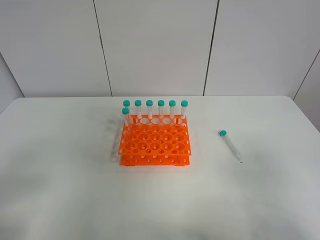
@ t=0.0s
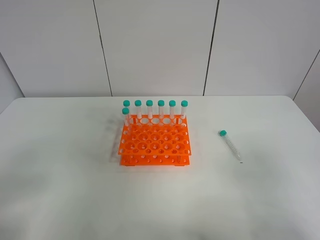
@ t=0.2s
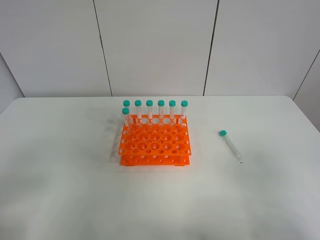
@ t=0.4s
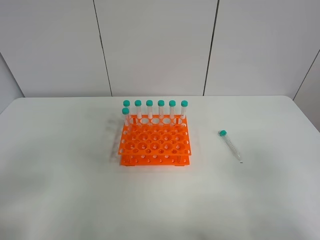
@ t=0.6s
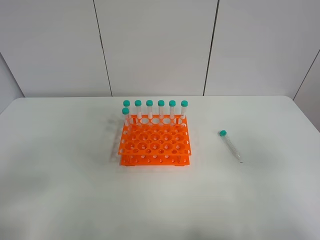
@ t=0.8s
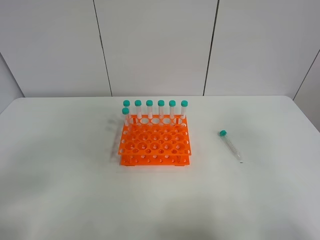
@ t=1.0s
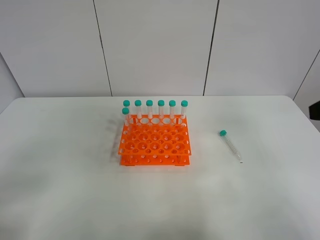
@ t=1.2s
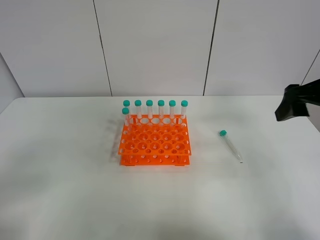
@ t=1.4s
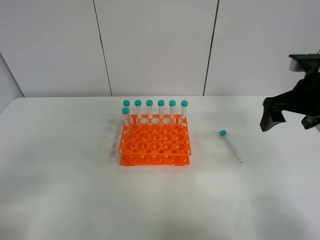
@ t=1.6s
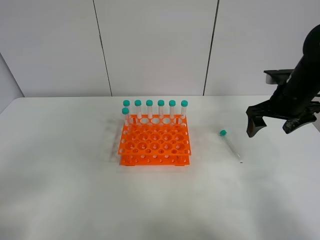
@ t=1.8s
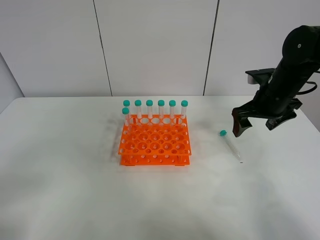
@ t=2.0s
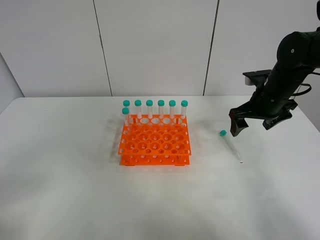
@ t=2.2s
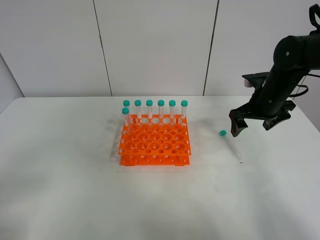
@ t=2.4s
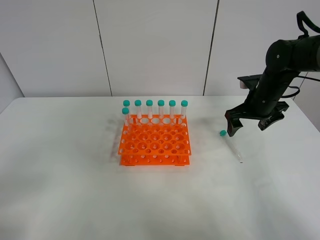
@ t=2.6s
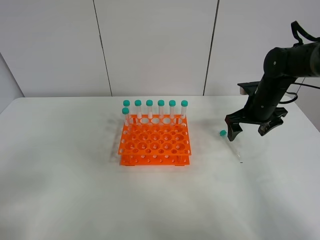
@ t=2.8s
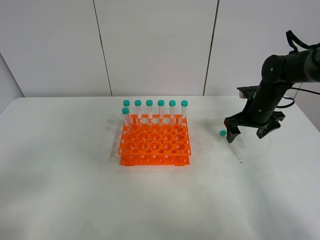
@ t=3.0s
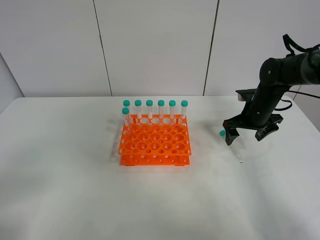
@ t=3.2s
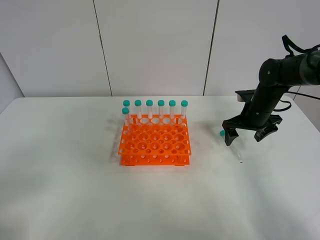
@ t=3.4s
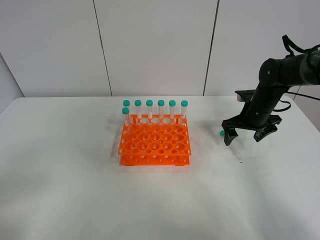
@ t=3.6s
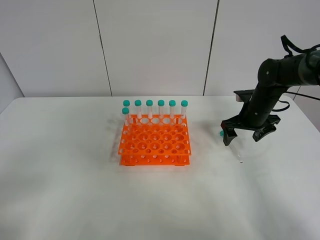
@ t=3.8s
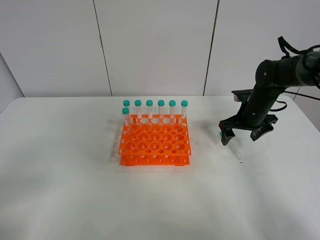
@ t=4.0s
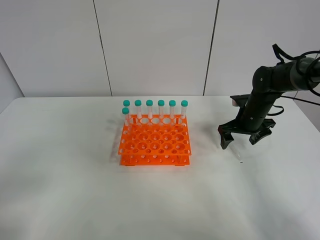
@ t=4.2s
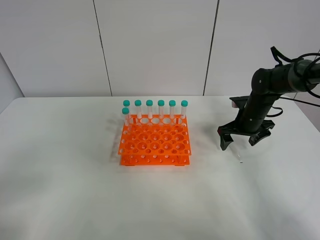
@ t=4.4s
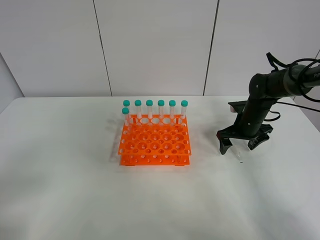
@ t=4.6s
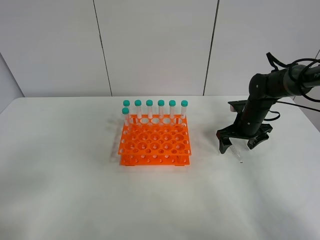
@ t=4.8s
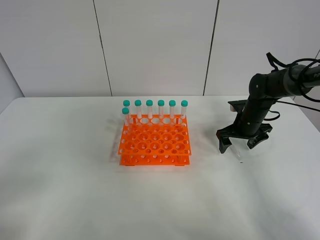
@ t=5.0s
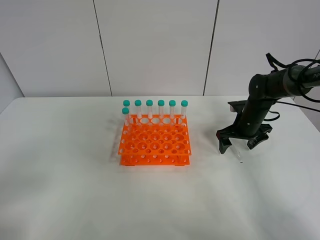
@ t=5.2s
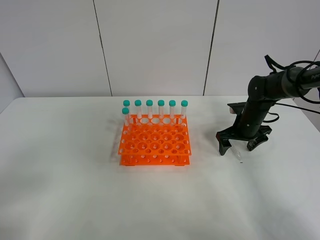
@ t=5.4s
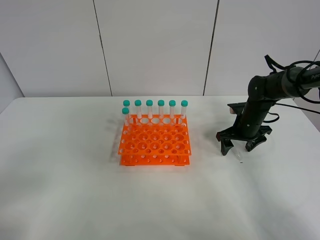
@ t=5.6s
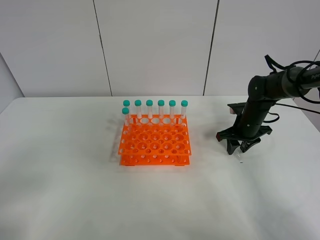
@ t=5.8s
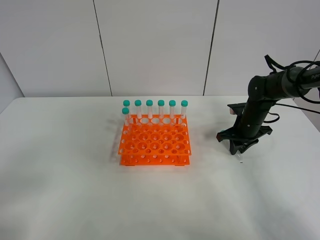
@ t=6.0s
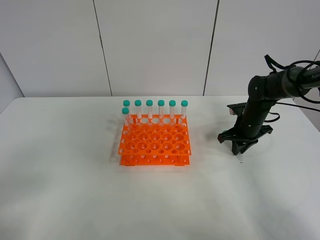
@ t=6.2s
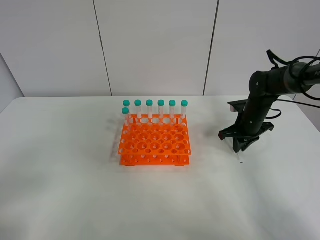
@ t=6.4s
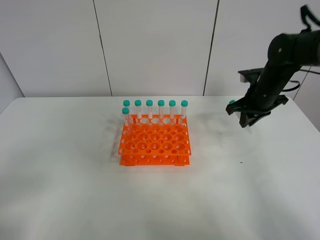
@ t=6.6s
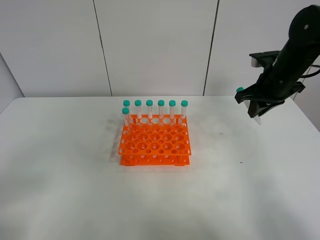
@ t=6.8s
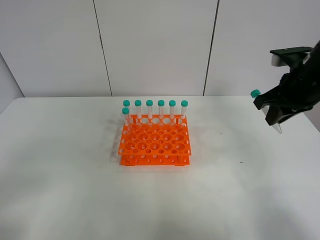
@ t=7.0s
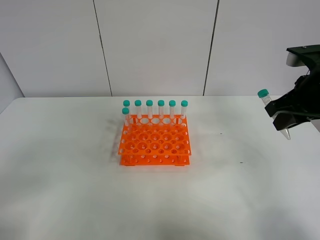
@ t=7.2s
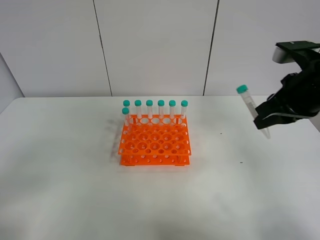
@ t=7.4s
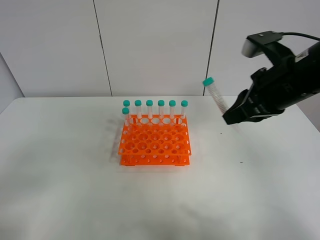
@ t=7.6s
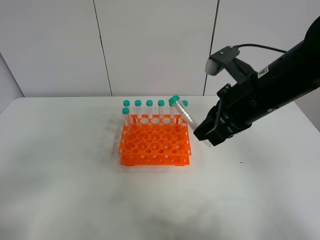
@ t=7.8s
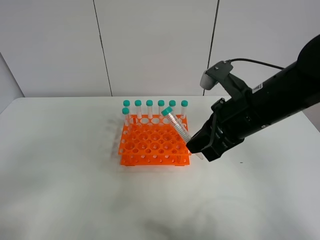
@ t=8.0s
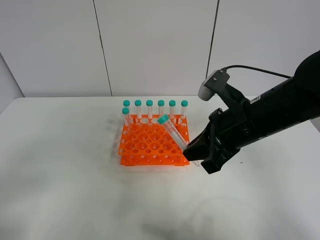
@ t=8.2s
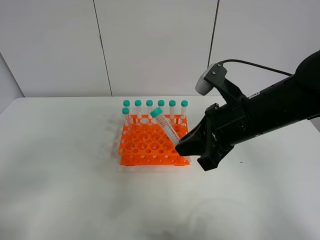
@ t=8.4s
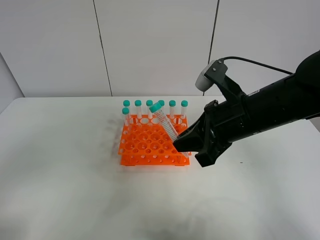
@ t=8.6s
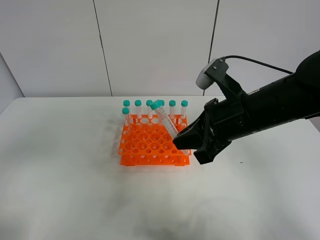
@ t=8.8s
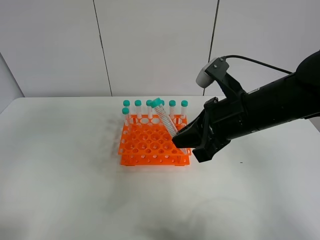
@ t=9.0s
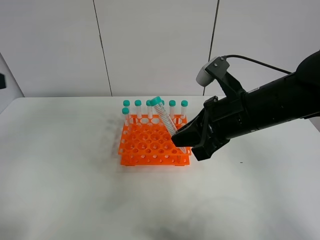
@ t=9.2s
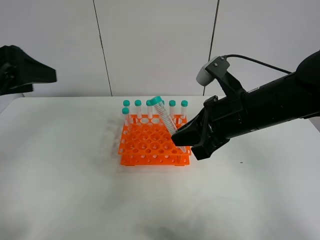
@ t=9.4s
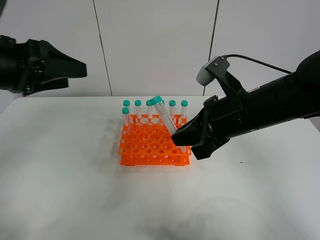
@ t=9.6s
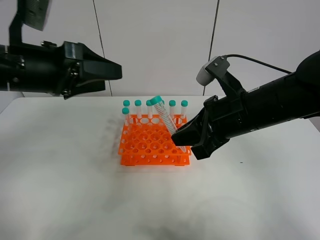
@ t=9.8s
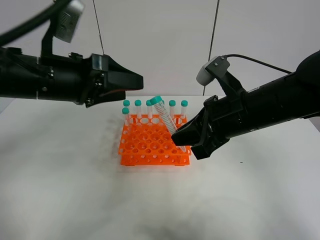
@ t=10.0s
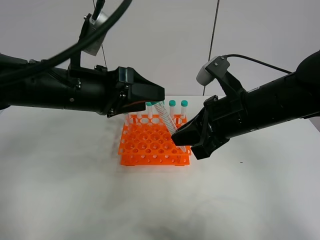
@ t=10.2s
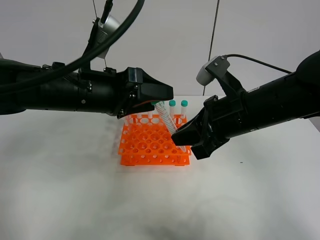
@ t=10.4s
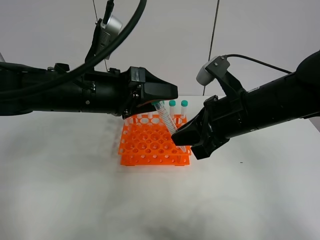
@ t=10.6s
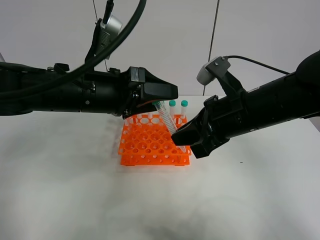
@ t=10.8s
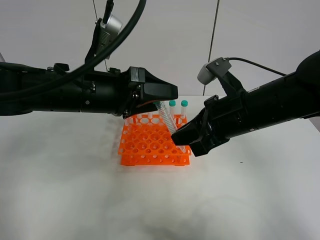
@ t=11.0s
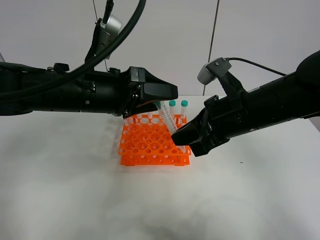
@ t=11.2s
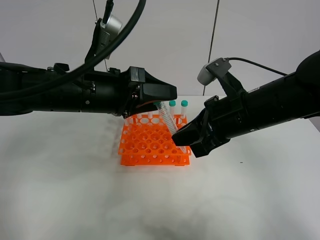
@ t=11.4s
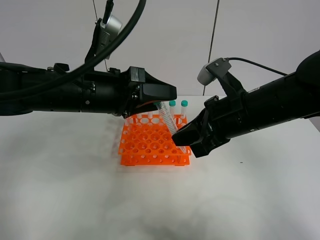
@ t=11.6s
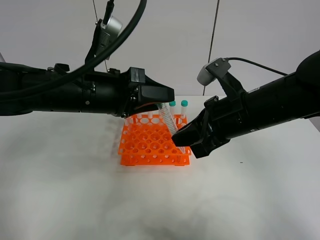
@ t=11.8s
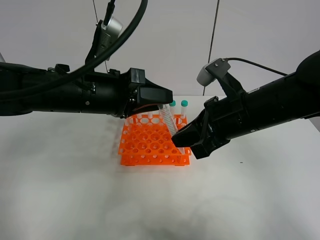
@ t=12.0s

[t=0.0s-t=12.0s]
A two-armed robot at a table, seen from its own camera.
Task of the whole recording: Put the test tube on the table back onto the test tube rack.
Step, t=0.0s to t=6.0s: Pick up the test tube with the right gripper.
t=0.0s to t=1.6s: The right gripper shifts roughly 30 cm forward.
t=1.6s to t=3.0s: The right gripper heads downward and forward, covering approximately 15 cm.
t=3.0s to t=4.4s: The grippers make only small movements.
t=4.4s to t=6.0s: The right gripper closes its fingers.
t=6.0s to t=7.6s: The right gripper heads upward and backward, covering about 25 cm.
t=7.6s to t=9.0s: The left gripper heads forward and upward, covering some 15 cm. Meanwhile the right gripper moves some 5 cm.
t=9.0s to t=10.4s: The left gripper heads to the right, forward and downward, covering about 25 cm.
t=10.4s to t=12.0s: The left gripper closes up.

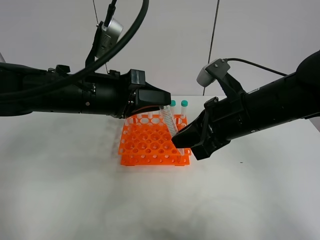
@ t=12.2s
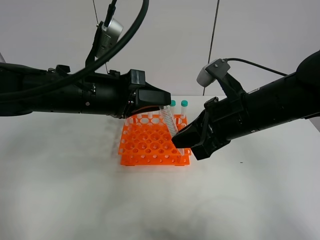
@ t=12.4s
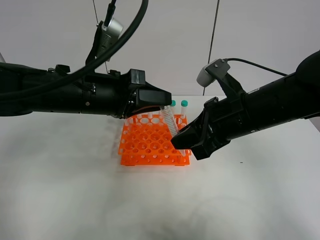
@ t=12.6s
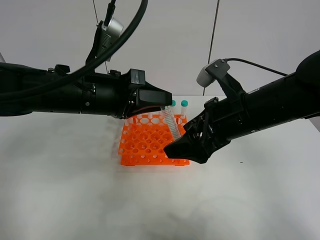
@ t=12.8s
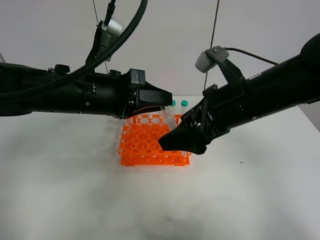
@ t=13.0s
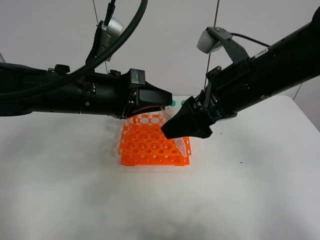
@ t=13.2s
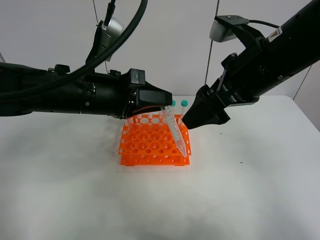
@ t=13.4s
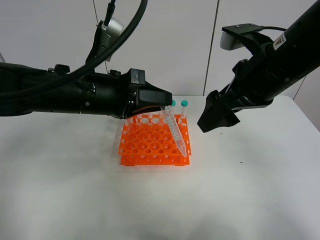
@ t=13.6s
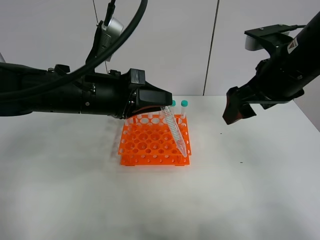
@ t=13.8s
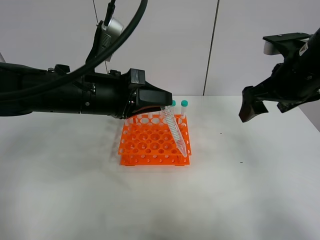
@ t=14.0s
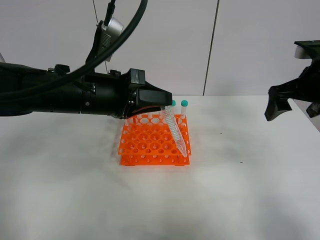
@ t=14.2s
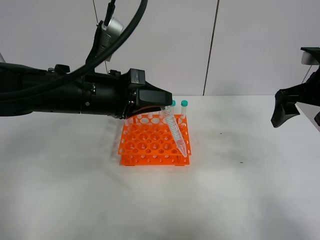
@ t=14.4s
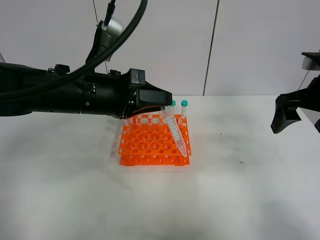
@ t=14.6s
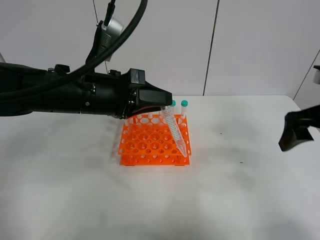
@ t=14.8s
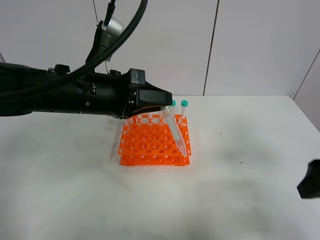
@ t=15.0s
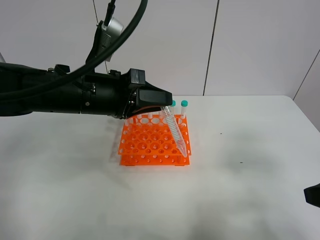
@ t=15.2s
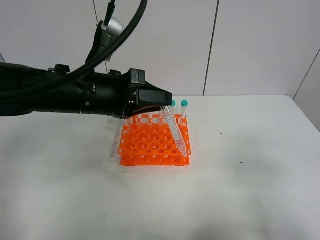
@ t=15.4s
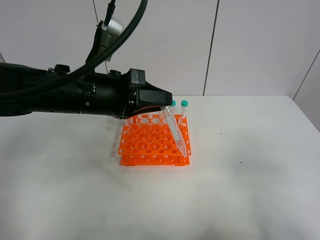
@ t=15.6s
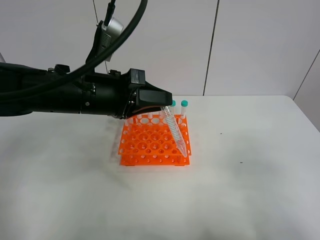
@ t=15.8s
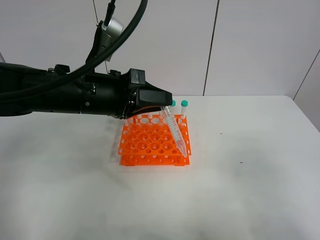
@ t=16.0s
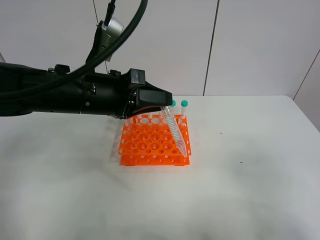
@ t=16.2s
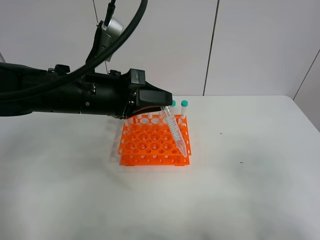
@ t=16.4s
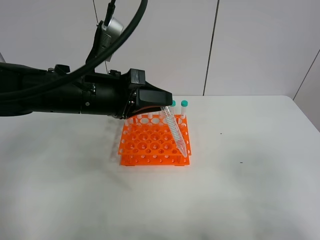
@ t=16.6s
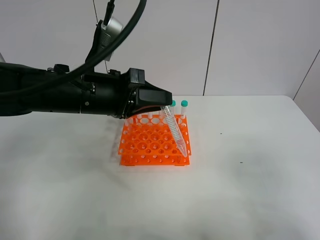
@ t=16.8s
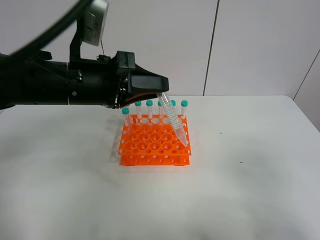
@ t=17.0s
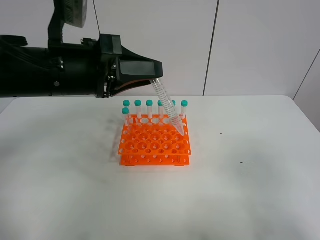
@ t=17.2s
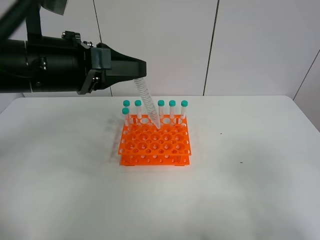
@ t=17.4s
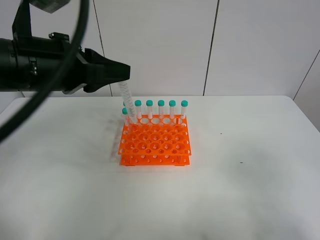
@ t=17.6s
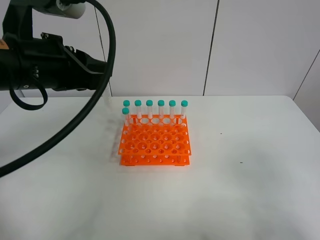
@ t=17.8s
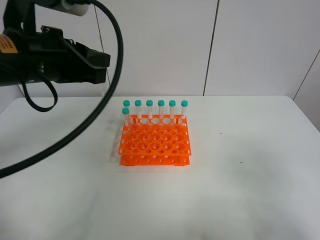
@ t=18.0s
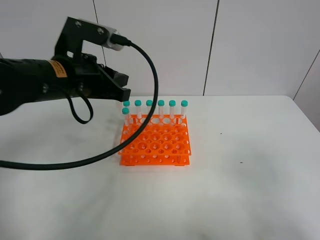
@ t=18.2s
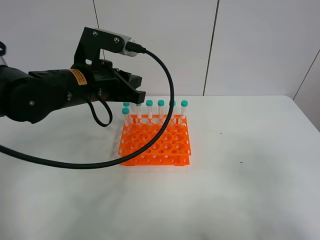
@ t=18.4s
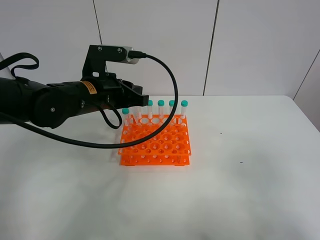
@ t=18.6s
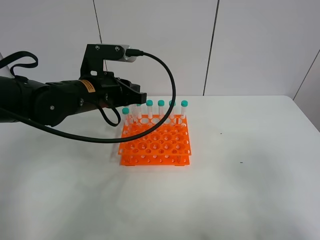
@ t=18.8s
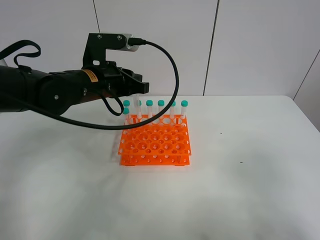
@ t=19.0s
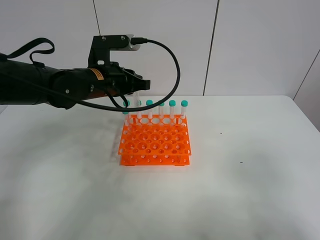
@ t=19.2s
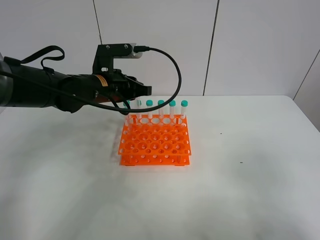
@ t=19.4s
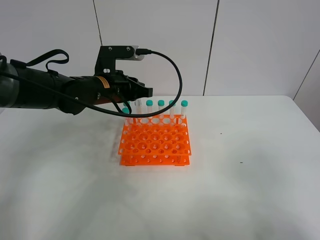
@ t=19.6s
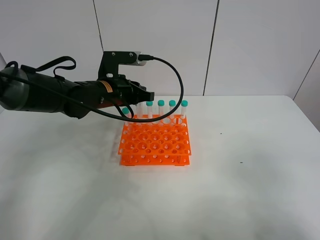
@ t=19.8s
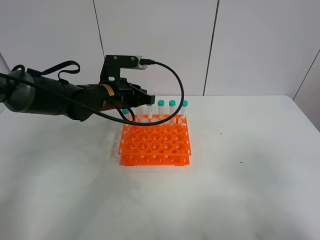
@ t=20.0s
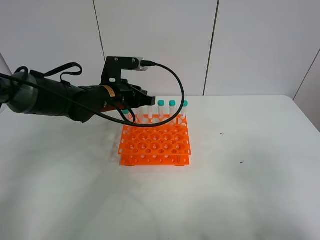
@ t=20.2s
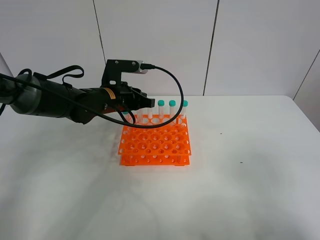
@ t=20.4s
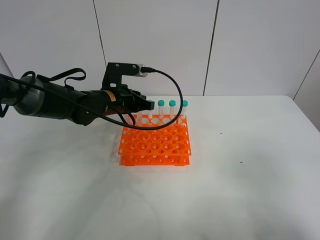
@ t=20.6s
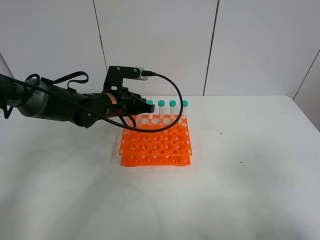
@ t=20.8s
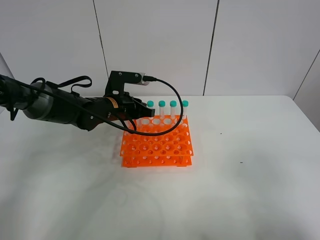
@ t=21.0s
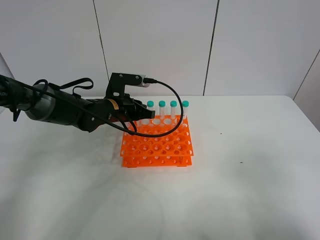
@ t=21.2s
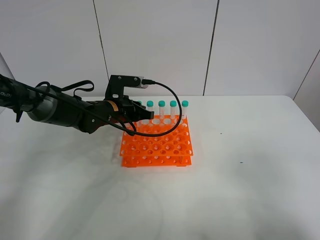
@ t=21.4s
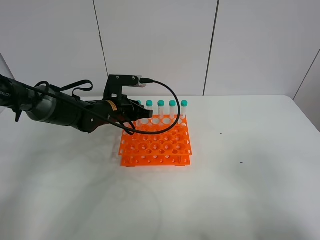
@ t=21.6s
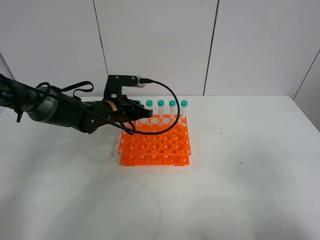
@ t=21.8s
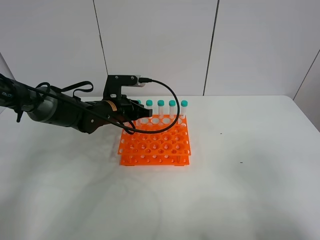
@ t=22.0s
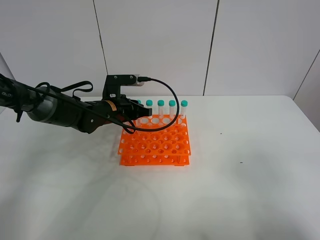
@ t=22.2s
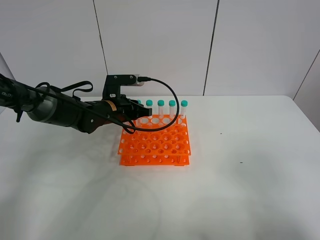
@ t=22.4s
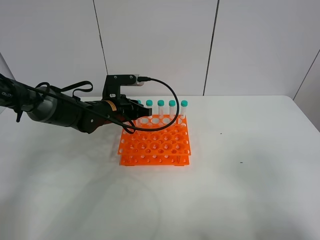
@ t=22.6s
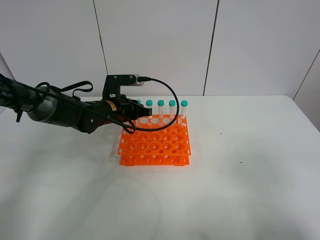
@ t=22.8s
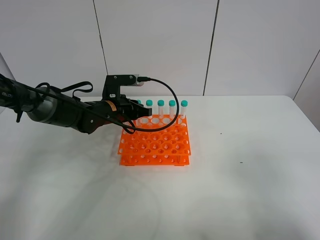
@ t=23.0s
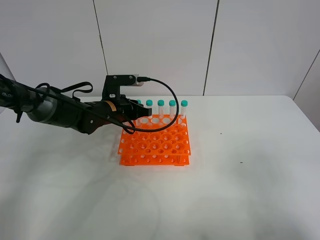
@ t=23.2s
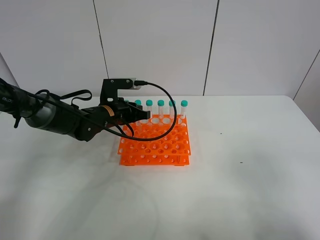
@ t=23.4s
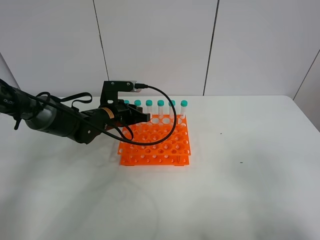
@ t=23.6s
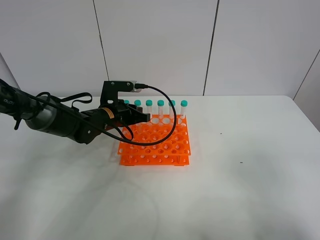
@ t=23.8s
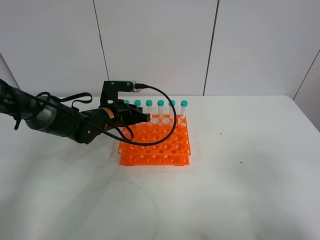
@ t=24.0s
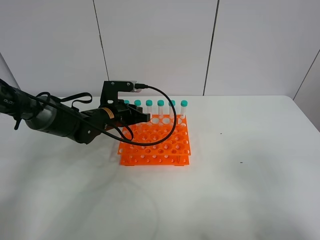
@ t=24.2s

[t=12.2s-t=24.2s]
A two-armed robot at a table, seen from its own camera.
Task of the whole recording: Put the test tube on the table back onto the test tube rack.
t=12.2s to t=13.8s: The right gripper shifts some 10 cm to the right and upward, and opens.
t=13.8s to t=15.2s: The right gripper goes some 20 cm backward and to the right.
t=18.2s to t=19.8s: The left gripper is displaced forward and downward by roughly 10 cm.
t=19.8s to t=21.2s: The left gripper is displaced downward by some 5 cm.
t=21.2s to t=24.2s: There are only small adjustments of the grippers.
